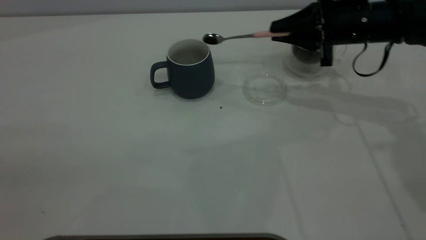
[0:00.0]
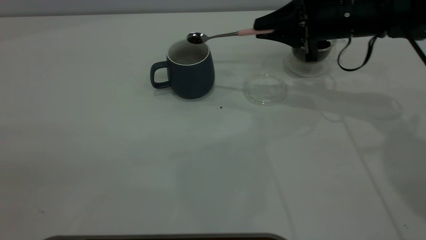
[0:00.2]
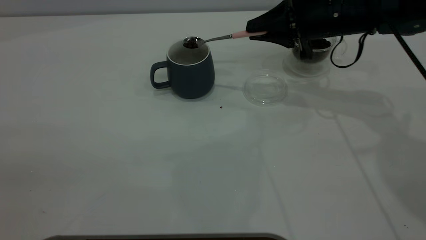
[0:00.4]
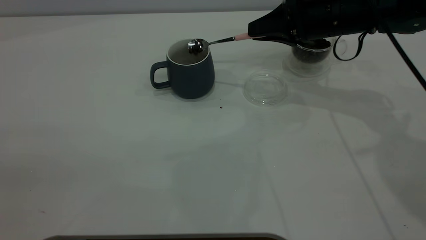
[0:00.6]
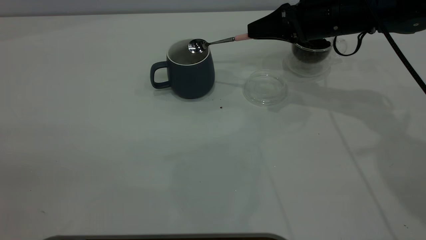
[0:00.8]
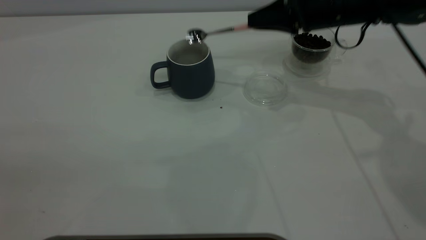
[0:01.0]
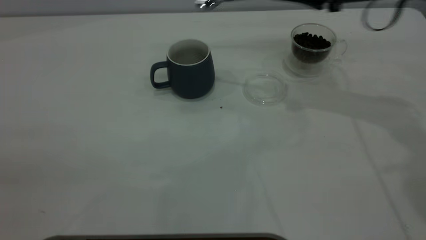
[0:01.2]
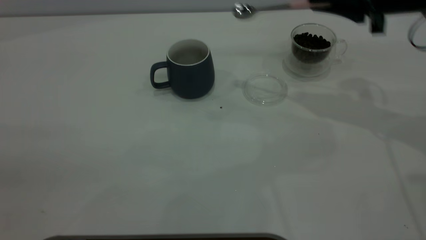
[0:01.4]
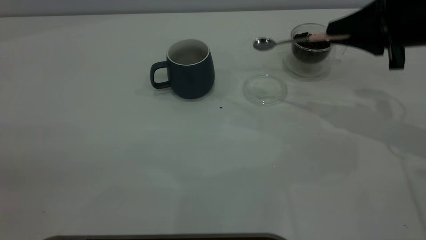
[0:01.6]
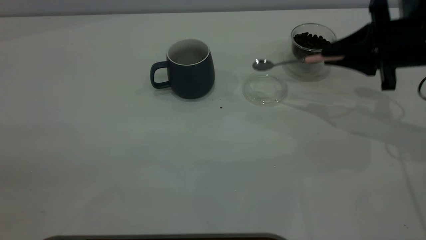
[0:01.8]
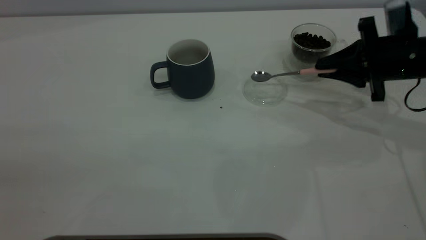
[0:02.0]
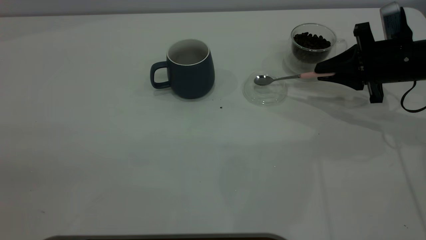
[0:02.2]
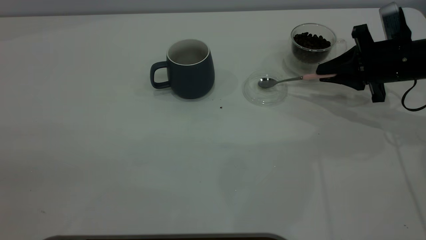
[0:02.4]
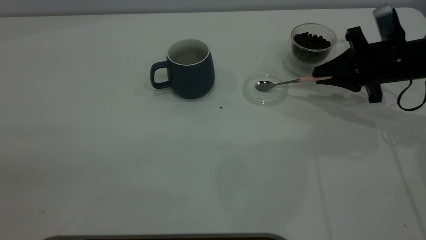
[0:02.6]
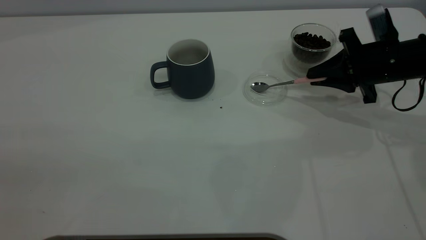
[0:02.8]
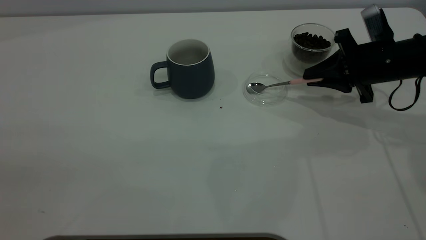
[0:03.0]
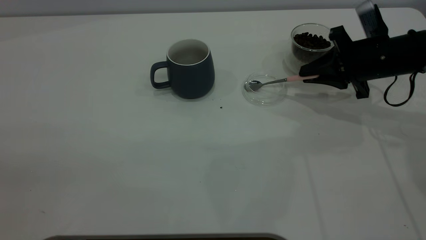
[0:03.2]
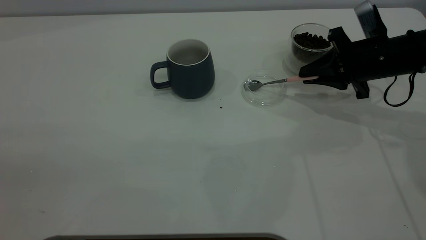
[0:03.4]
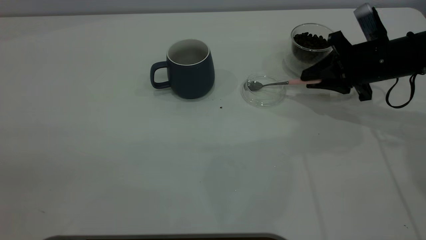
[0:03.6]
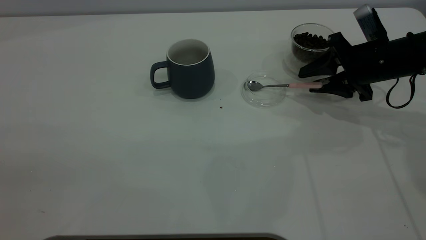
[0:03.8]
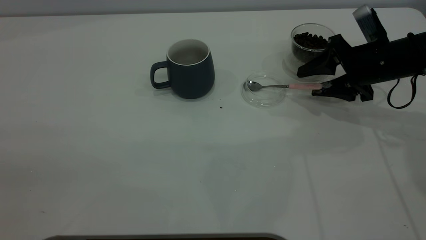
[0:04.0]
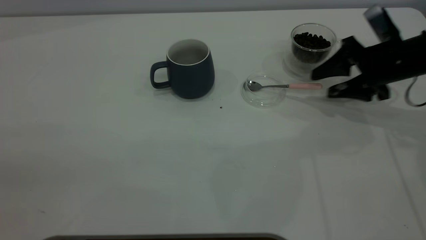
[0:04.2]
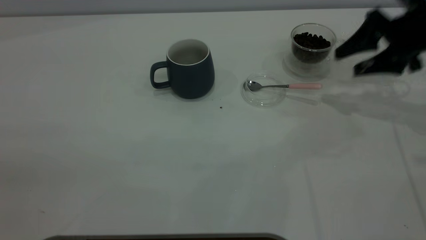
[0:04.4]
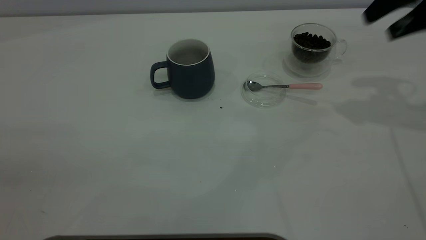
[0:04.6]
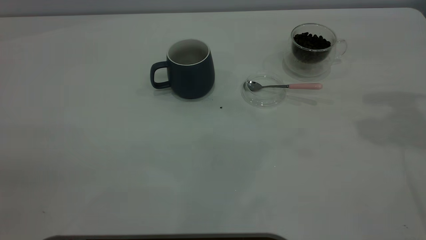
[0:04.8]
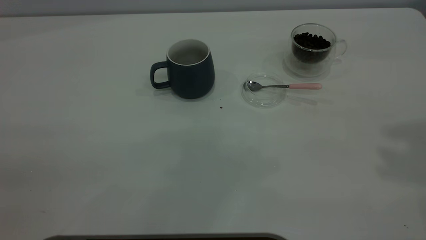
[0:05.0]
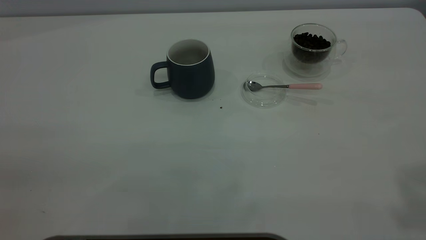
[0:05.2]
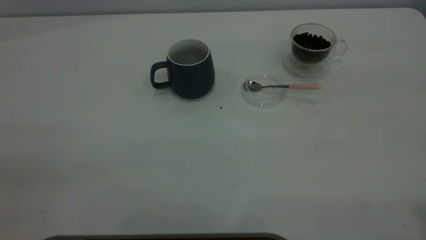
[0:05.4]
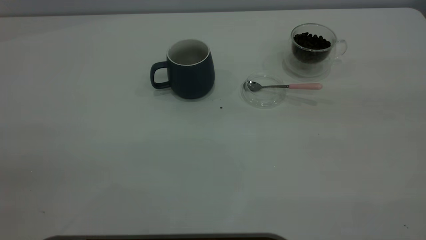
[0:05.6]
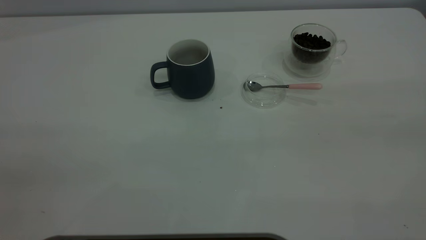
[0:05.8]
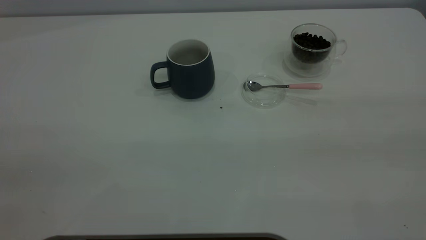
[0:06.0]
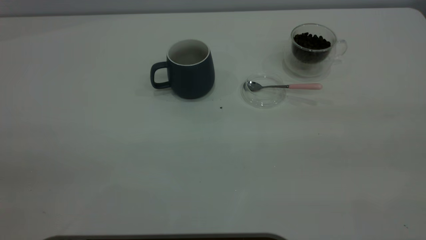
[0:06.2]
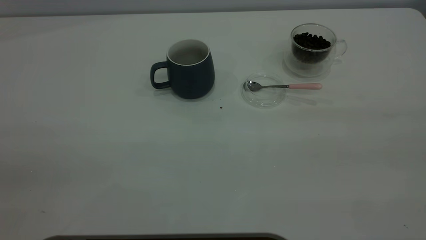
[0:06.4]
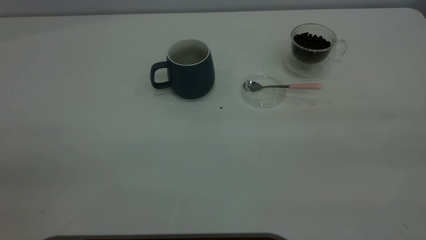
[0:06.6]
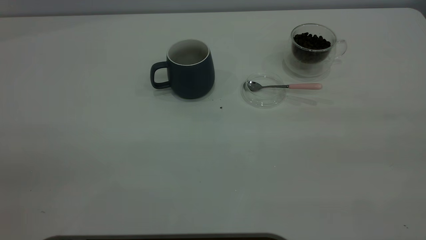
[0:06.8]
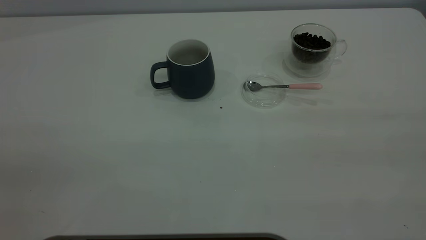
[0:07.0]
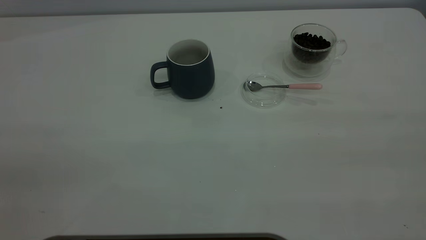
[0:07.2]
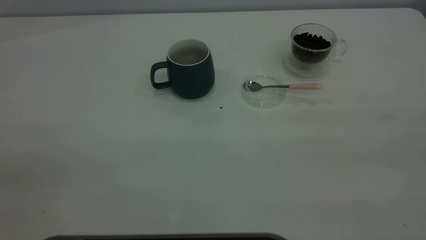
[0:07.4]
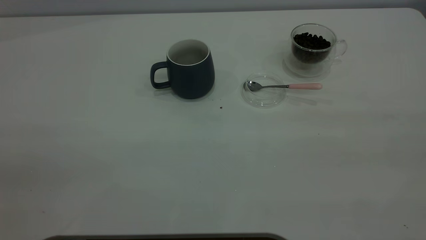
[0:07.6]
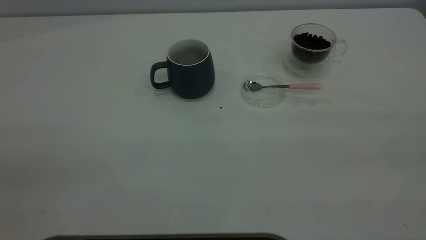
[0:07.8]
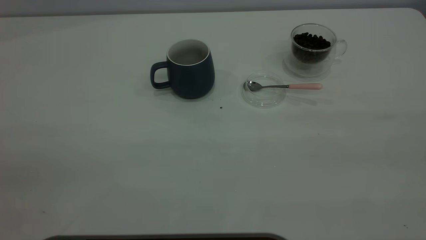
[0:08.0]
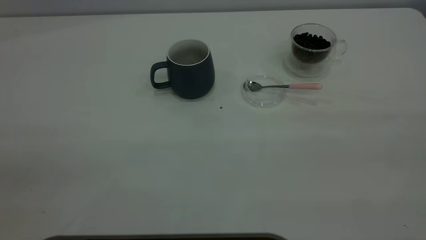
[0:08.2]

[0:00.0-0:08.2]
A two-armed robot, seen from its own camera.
Task of the whole recording: the left gripper place the grey cup in the center of the table, the right gripper take the pink spoon from the cup lid and scoop out the coffee beans from the coffee cup and put them into the grey cup, the right gripper put the spoon back into the cup lid.
Step, 0:01.2 to 0:04.2: Place the spoon back in its original place.
0:00.0 to 0:01.6: The right gripper moves backward and to the right, some 10 cm.
0:01.6 to 0:03.2: The right gripper is displaced downward by some 10 cm.
0:03.2 to 0:05.0: The right gripper goes some 40 cm upward and backward, and opens.

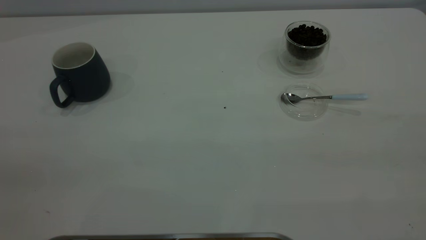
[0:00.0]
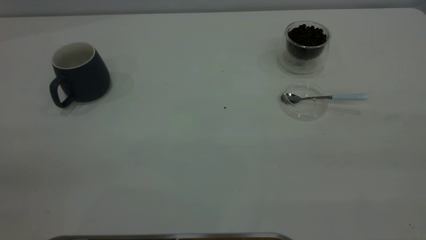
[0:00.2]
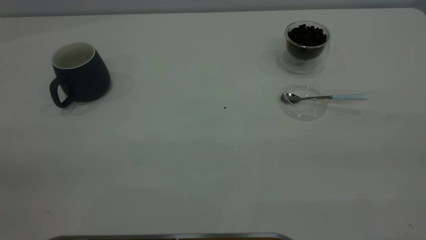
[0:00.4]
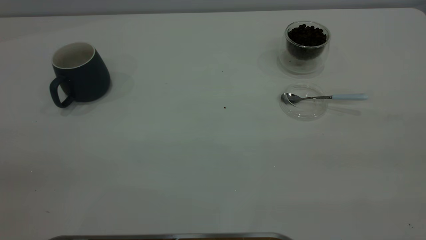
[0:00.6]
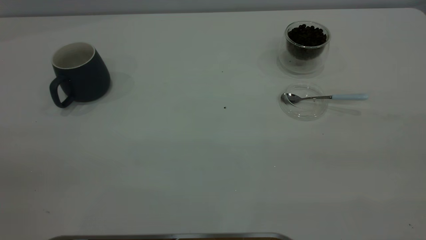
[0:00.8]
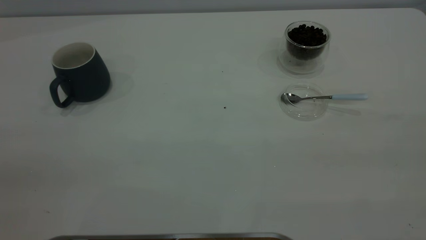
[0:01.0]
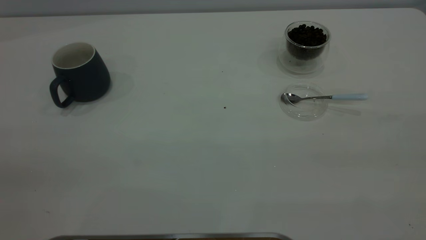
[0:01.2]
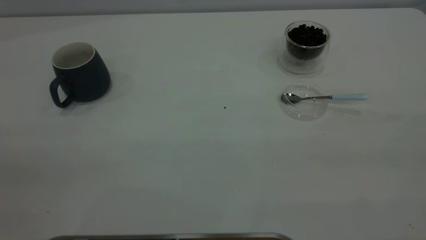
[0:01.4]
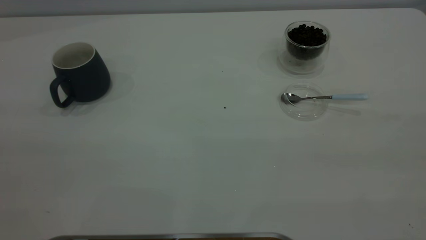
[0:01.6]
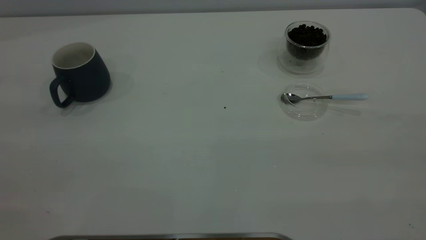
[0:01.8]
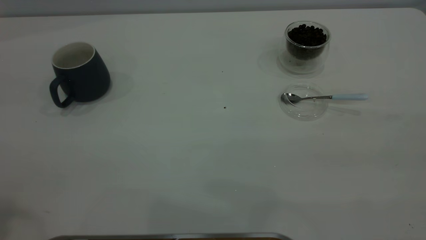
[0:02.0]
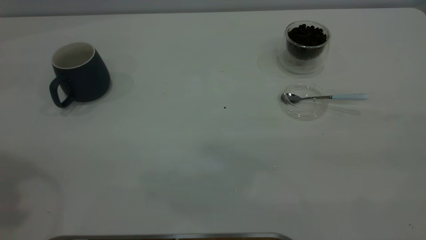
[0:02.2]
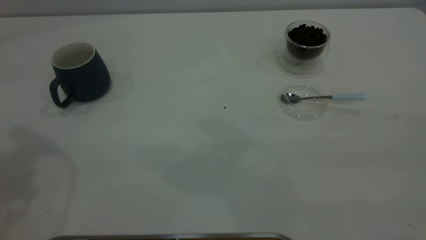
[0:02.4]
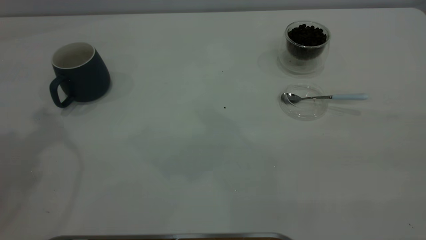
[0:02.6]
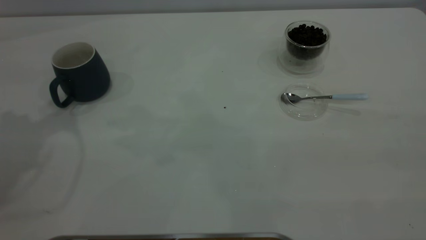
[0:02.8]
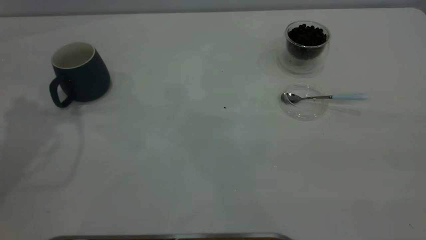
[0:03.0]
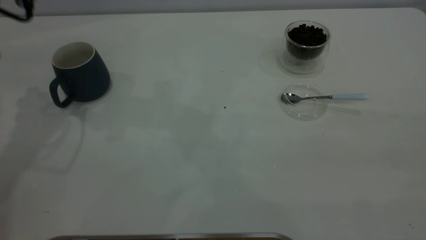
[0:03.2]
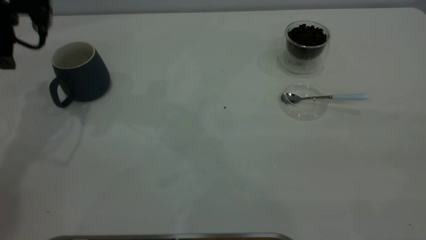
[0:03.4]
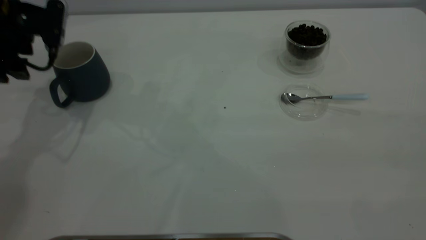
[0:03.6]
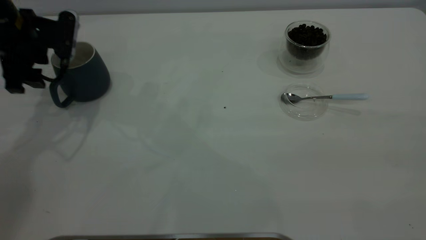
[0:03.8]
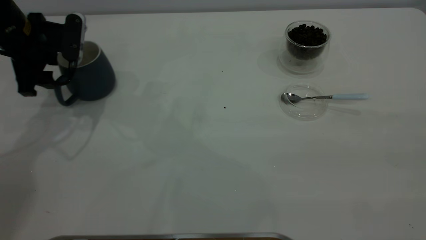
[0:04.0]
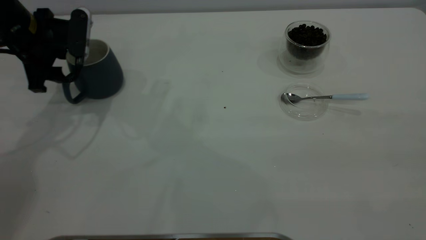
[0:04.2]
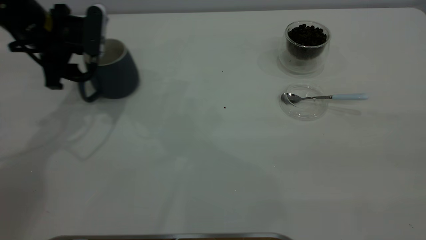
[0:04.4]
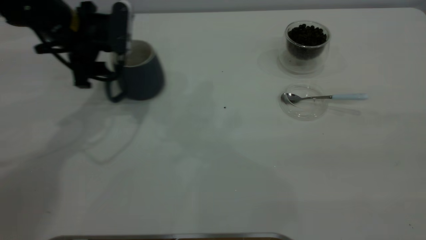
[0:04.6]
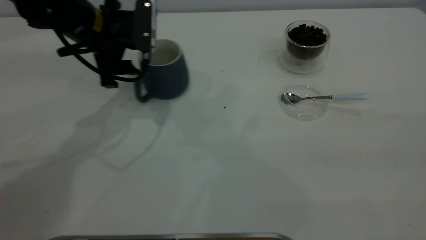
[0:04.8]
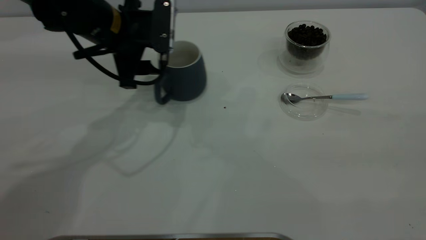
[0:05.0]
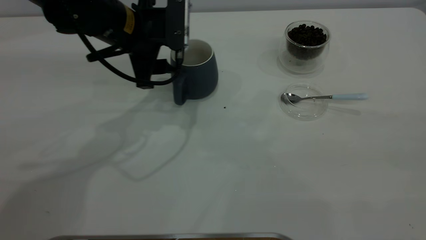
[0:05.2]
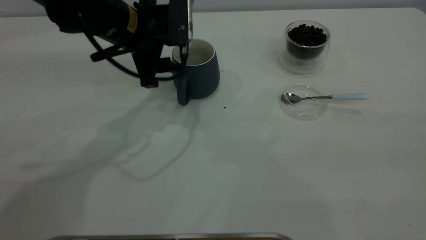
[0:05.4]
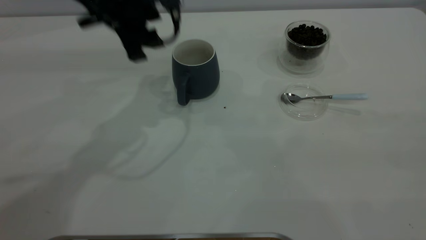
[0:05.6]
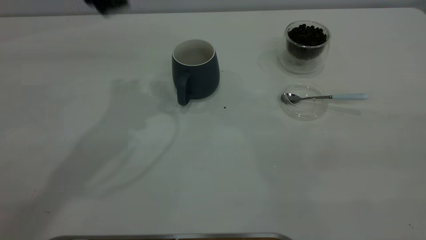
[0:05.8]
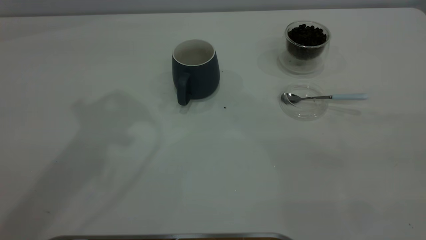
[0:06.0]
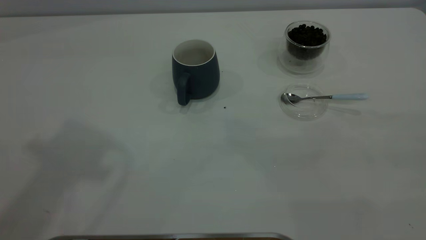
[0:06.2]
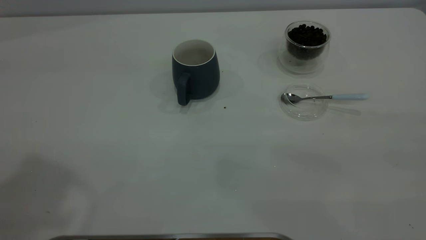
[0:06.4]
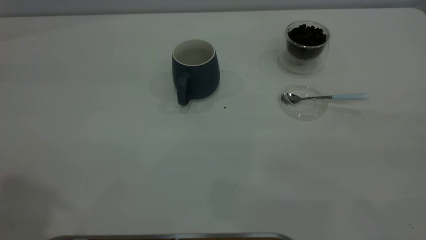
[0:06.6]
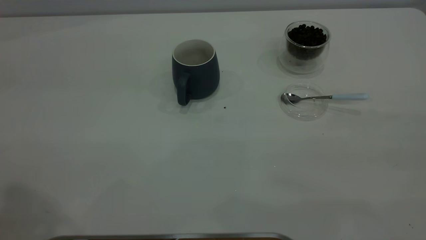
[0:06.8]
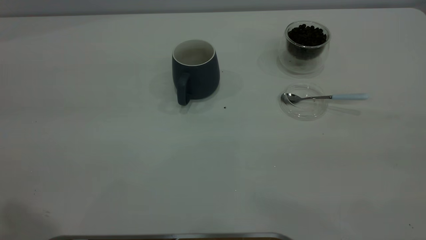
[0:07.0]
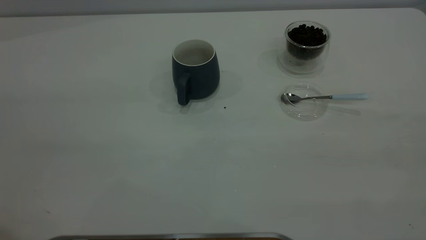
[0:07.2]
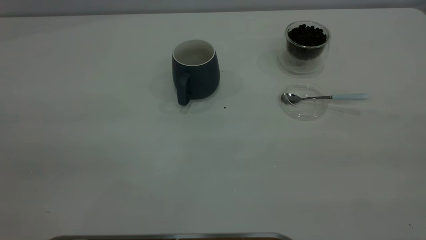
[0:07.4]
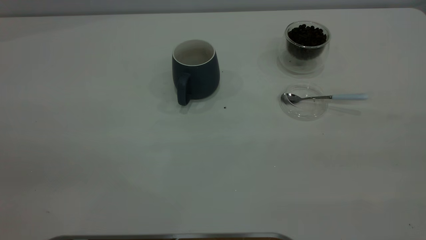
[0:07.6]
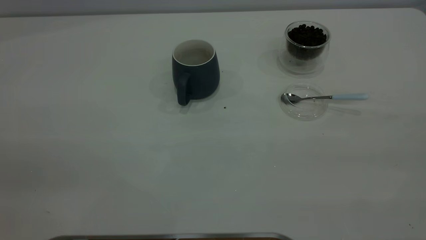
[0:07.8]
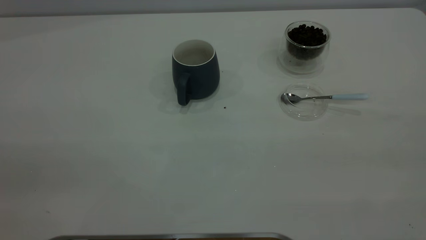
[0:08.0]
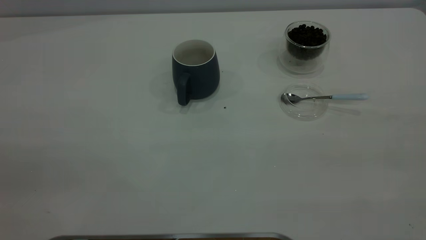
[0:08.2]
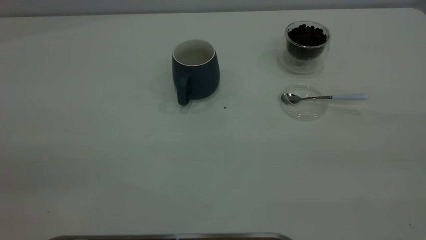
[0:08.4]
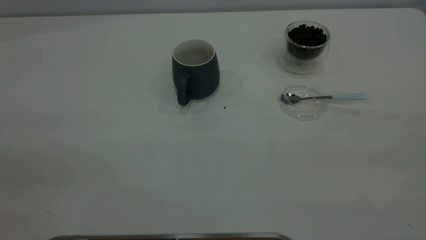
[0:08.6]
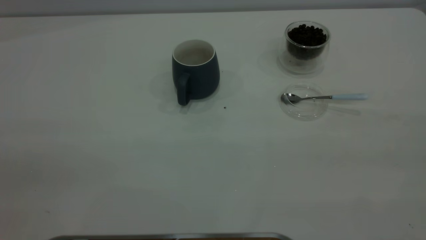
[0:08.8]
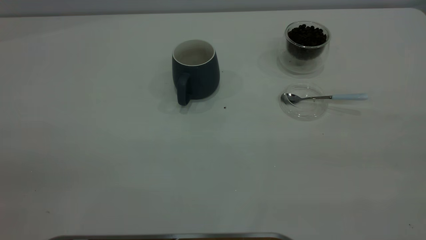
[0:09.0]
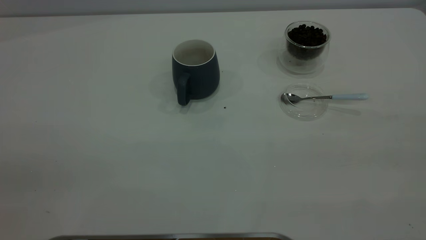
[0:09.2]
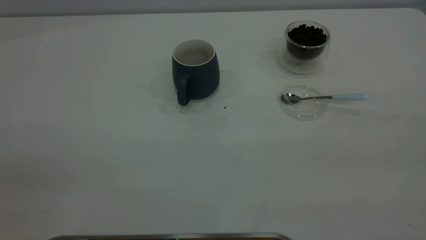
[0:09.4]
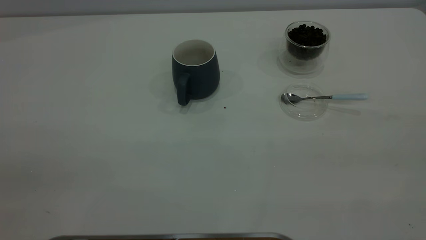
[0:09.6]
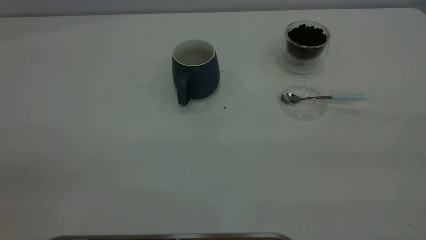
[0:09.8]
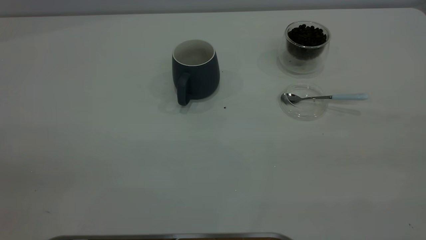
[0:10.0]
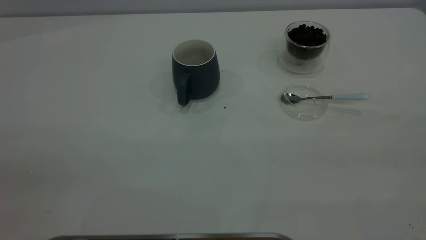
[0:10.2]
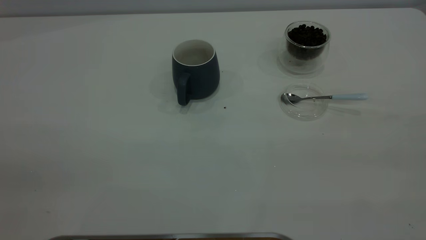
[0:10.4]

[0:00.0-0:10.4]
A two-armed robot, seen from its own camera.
Task of the whole recording: the left gripper place the grey cup in the center of the table, the right gripper take the blue spoon from the cup lid and scoop out the coffee beans from the coffee cup and put them into the grey cup, the right gripper put the spoon back into the cup lid.
Step, 0:00.0 to 0:05.4: Move the cup to the center of view.
0:03.0 to 0:04.4: The left gripper shifts some 15 cm downward and to the right.
0:04.4 to 0:06.0: The left gripper shifts roughly 30 cm upward and backward.
0:09.0 to 0:10.4: Both grippers stay about where they are.
